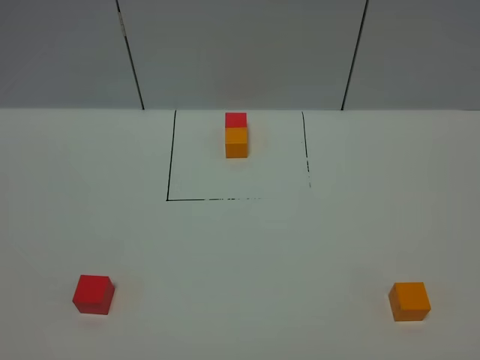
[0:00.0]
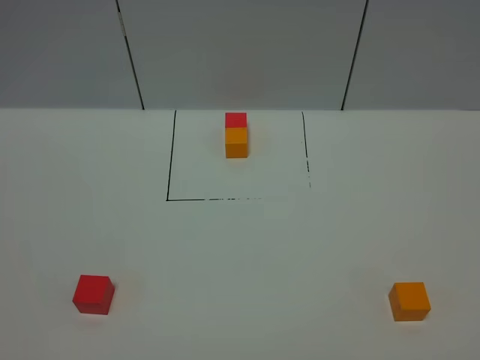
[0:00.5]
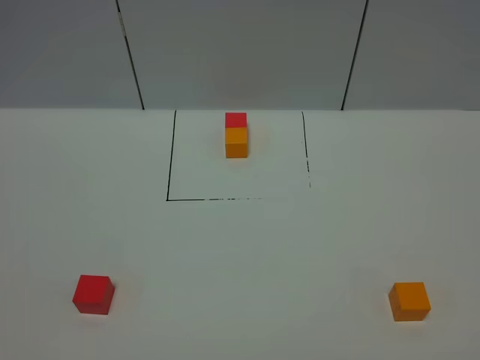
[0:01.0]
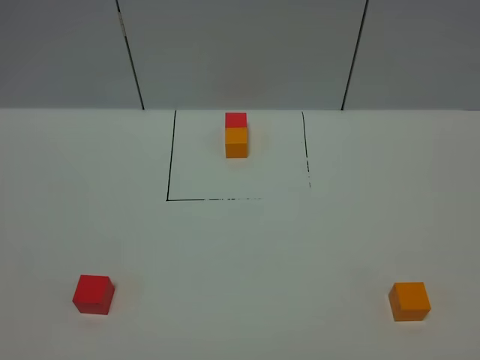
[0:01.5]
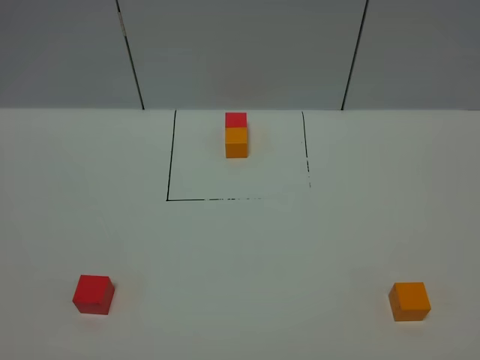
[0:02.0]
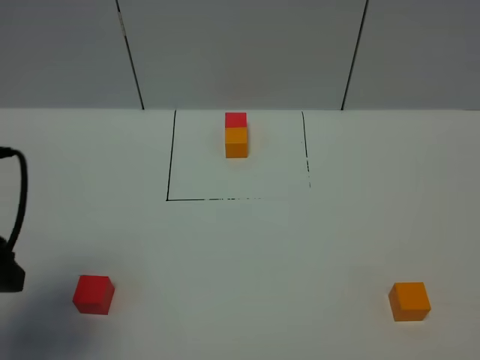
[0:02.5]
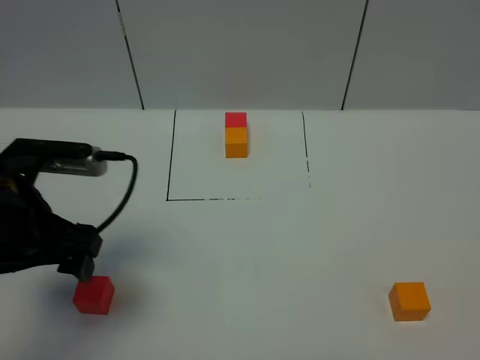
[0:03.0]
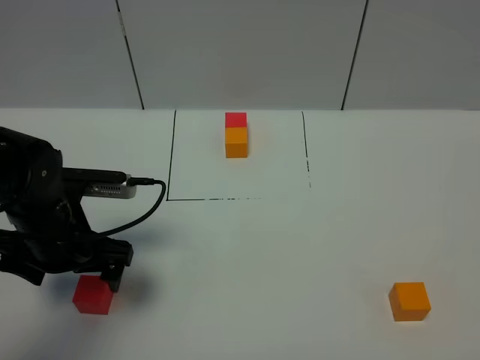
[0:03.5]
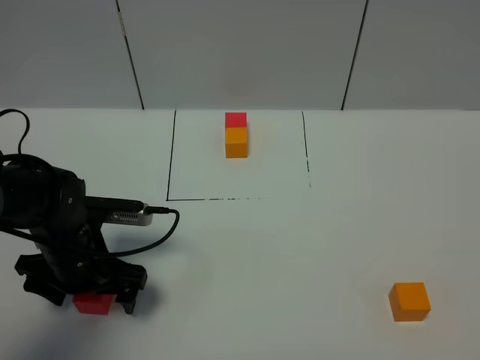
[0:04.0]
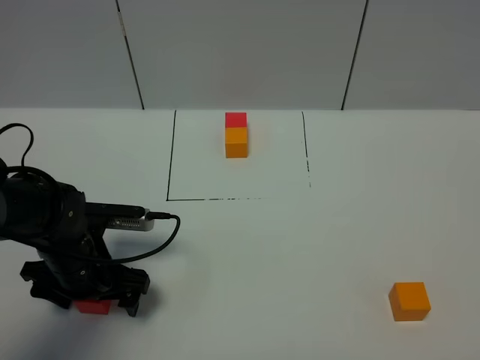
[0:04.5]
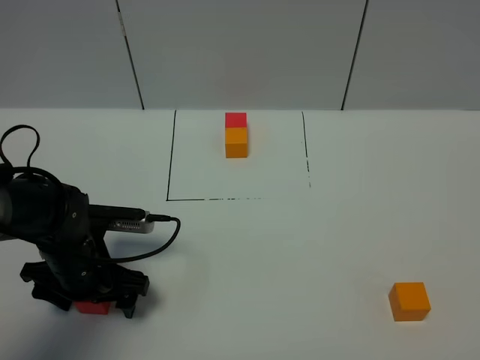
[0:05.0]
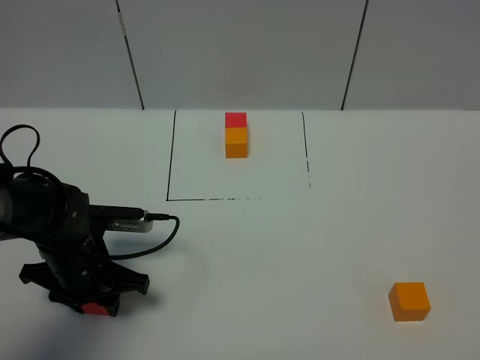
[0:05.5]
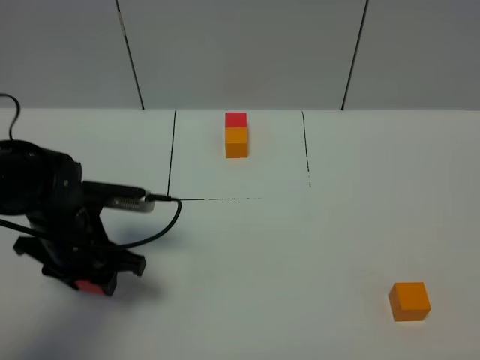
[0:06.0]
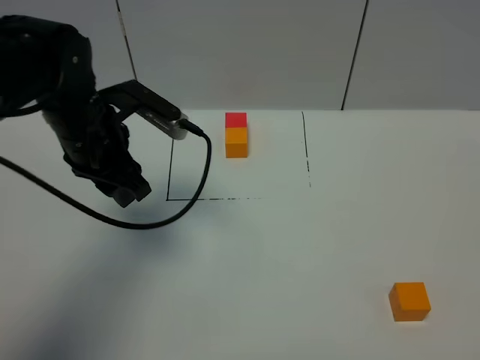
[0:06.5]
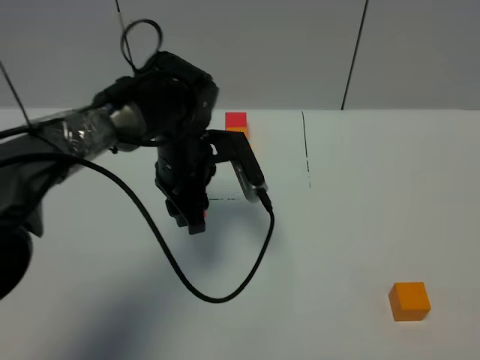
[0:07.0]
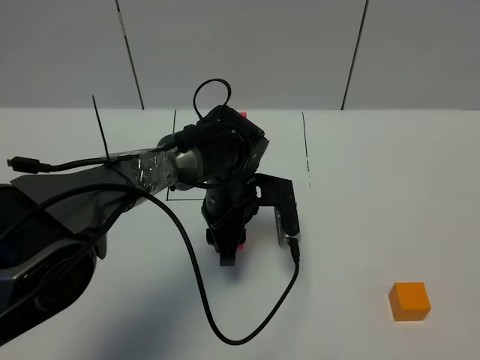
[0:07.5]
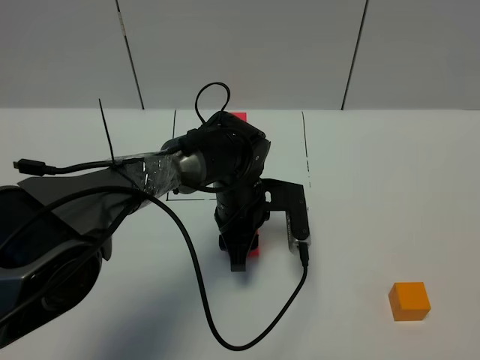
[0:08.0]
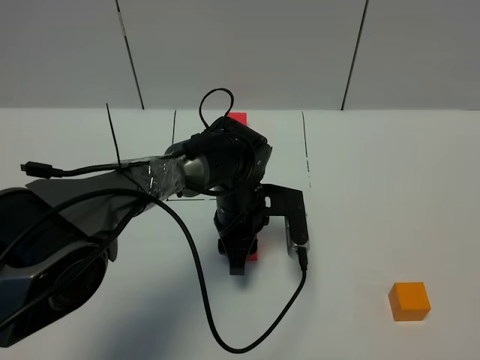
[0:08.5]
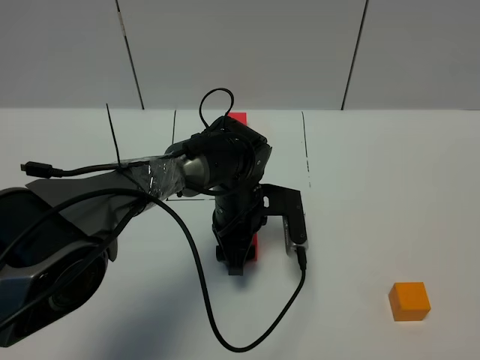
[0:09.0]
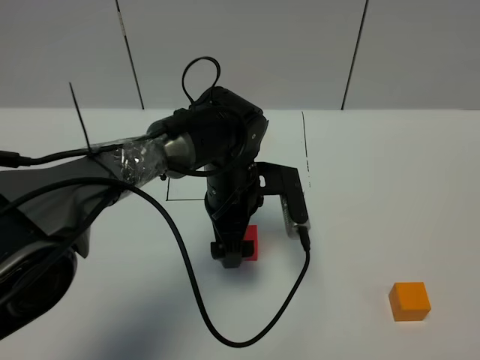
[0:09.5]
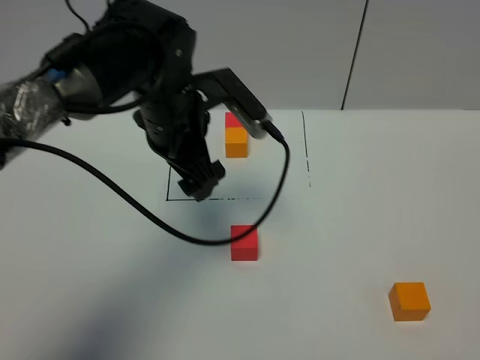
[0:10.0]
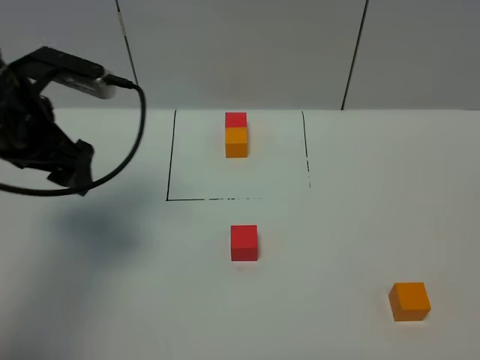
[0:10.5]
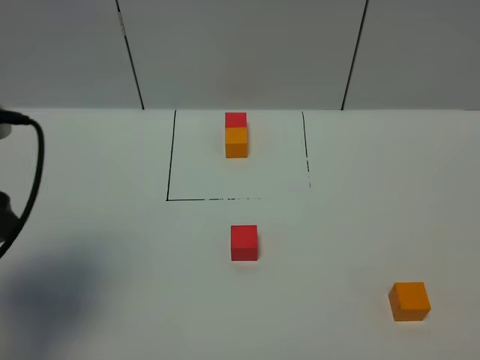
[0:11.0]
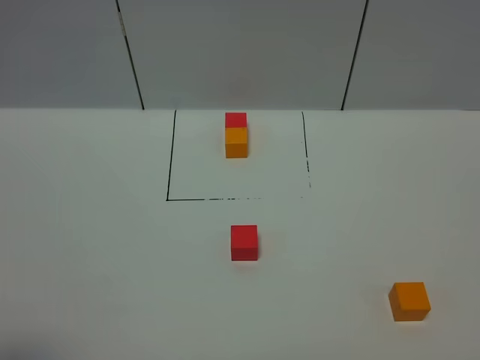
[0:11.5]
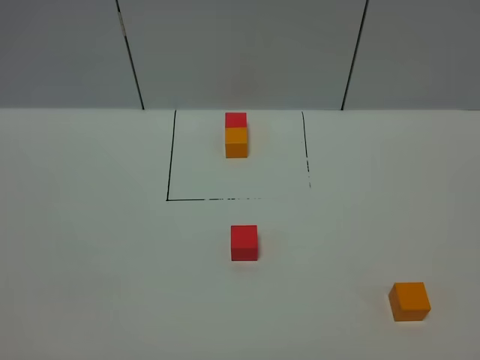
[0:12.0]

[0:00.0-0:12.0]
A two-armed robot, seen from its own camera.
Task of the whole recording: According to the building block template in front, assemble the scattered blocks together.
Step, 2.5 to 9.0 s: Put the red cube in the center of the table.
2.0 to 4.0 s: The left gripper is displaced forward and downward by about 30 cm.
4.0 to 6.0 s: The left gripper closes up.
6.0 to 8.0 s: The left gripper is displaced to the right by about 20 cm.
8.0 to 10.0 s: The left gripper goes roughly 20 cm upward and to the left, and opens its fingers.
10.0 to 12.0 s: The left gripper is displaced backward and to the left by roughly 40 cm.

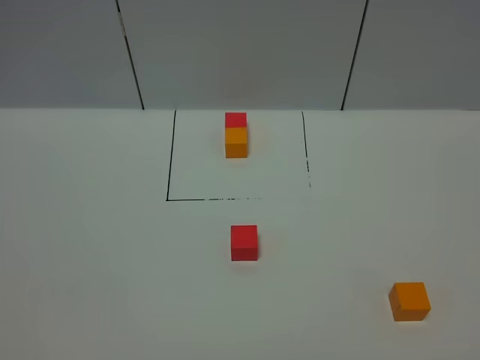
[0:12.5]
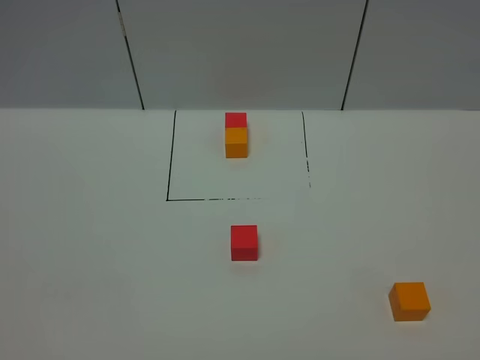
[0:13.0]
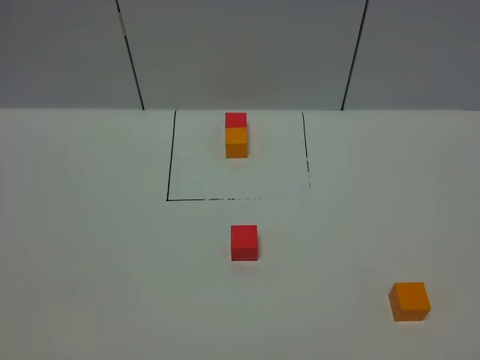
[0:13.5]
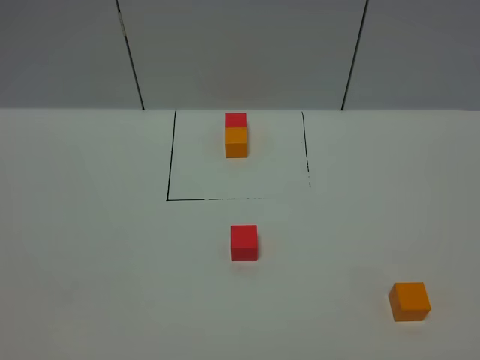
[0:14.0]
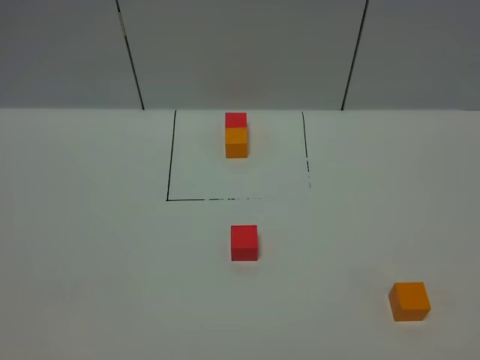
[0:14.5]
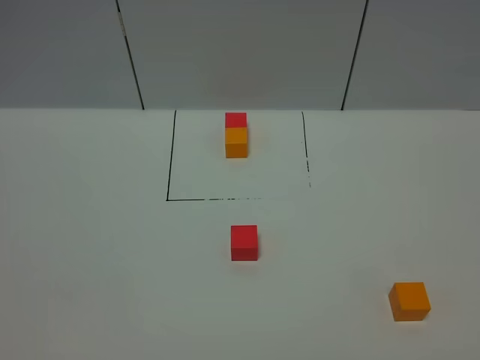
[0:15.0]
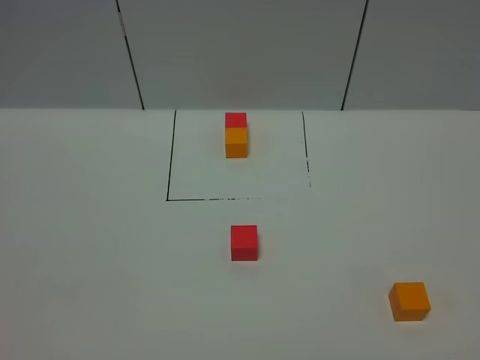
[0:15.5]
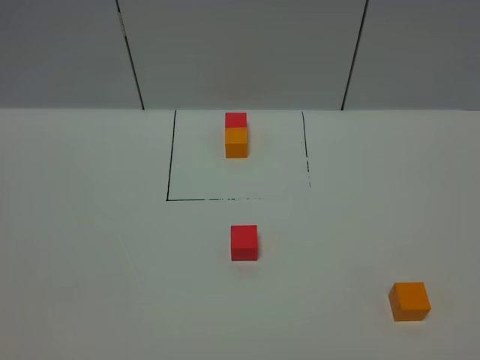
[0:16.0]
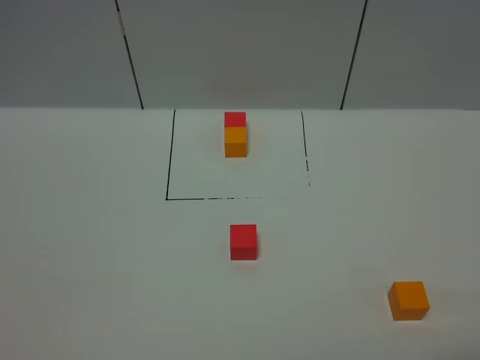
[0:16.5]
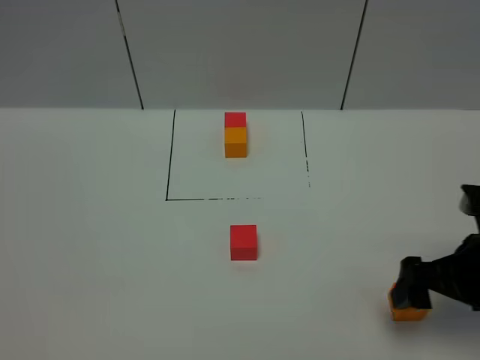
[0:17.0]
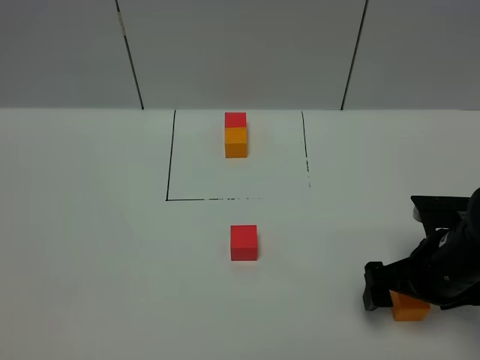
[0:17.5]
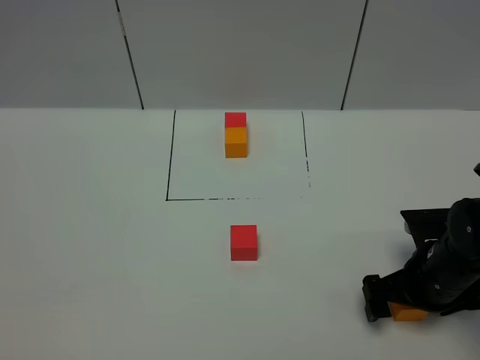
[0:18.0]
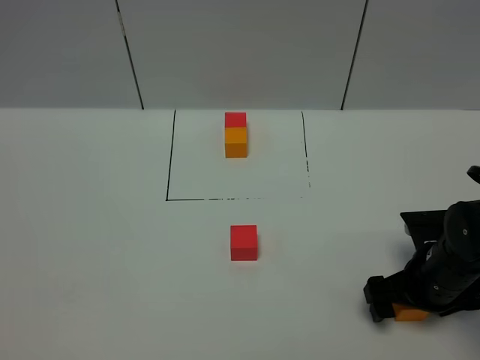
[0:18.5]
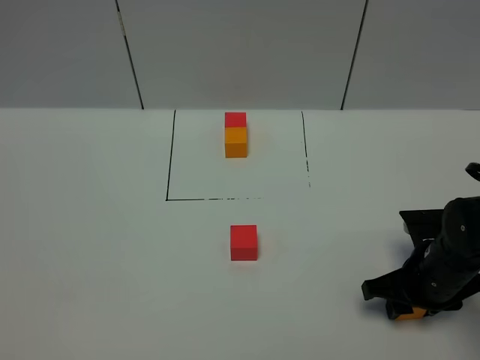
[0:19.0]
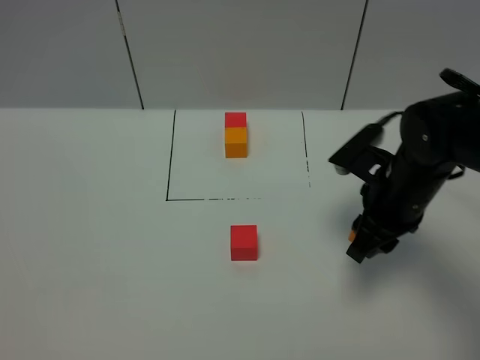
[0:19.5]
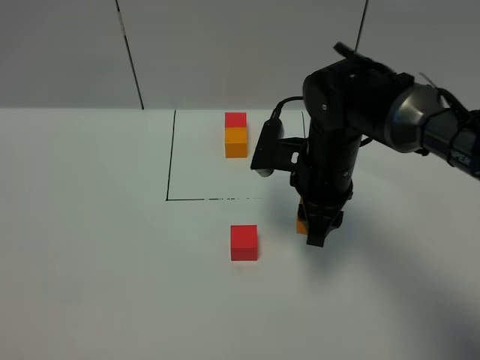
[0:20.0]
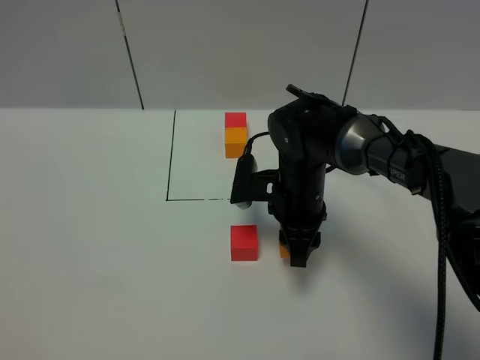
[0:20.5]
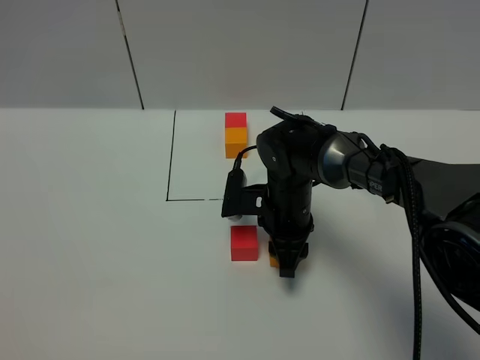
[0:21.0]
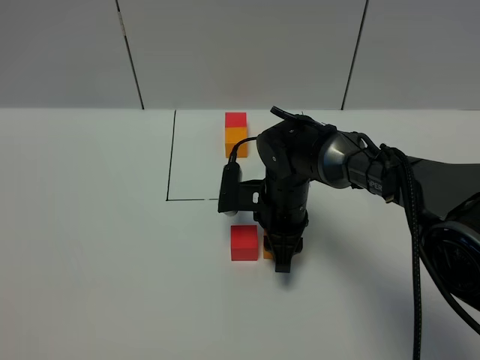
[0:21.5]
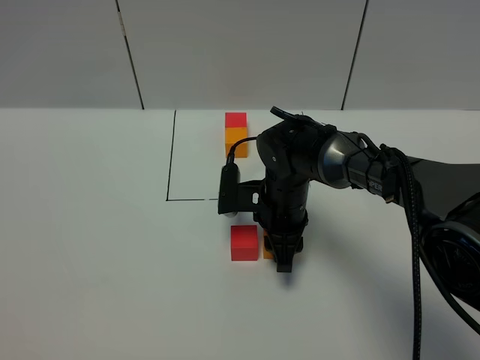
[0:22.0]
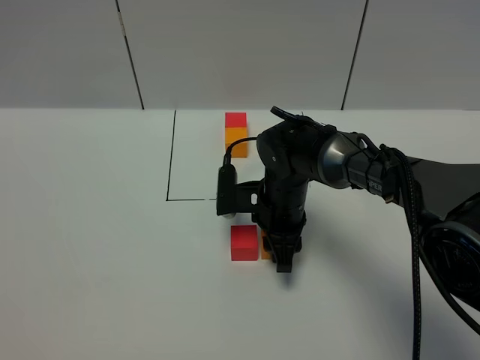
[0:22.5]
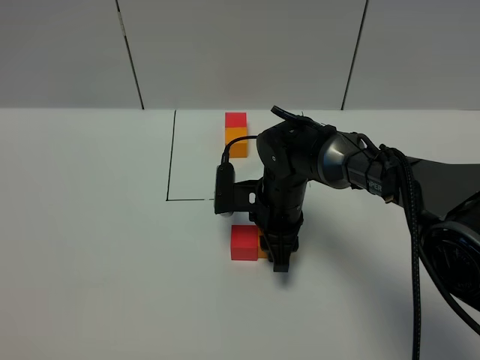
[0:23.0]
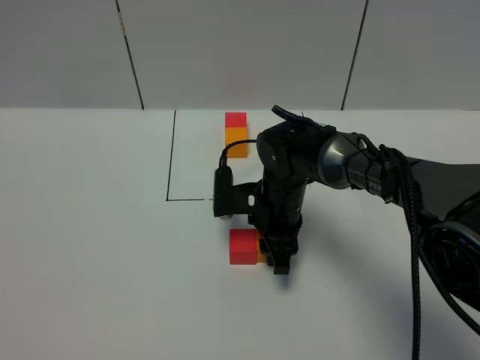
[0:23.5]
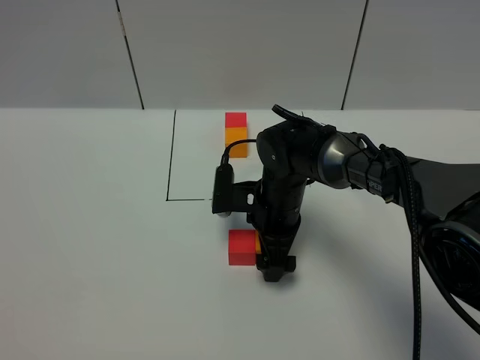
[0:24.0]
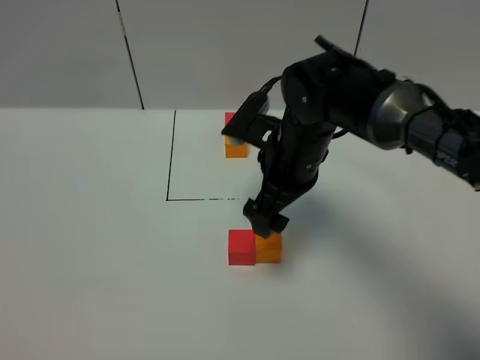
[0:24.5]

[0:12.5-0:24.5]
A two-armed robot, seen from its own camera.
Task of the whole recording: According to the building block template in front, assemble the scattered blocks together.
Step, 12.5 to 24.0 s: Put the orange cube on the right of the red cube.
12.5 to 14.5 s: Both grippers stay about where they are.
16.5 to 18.5 s: The right gripper travels downward and forward by approximately 25 cm.
18.5 to 20.5 s: The right gripper travels to the left and forward by some 20 cm, and closes up.
20.5 to 22.5 s: The grippers move only a little.
22.5 to 24.5 s: The right gripper travels upward by approximately 10 cm, and opens its fingers.

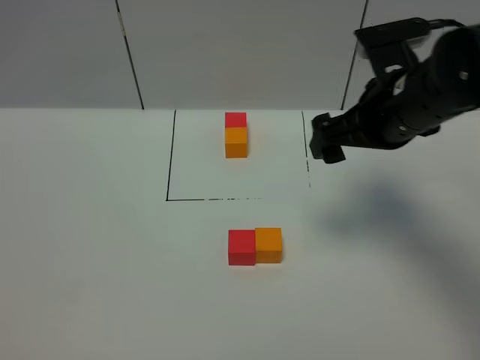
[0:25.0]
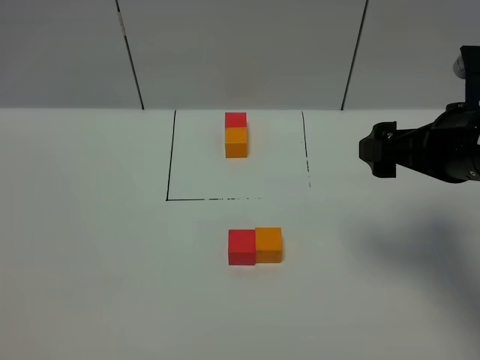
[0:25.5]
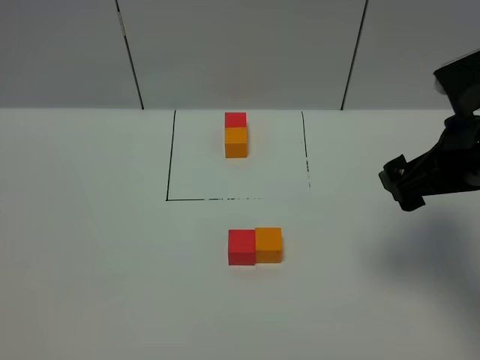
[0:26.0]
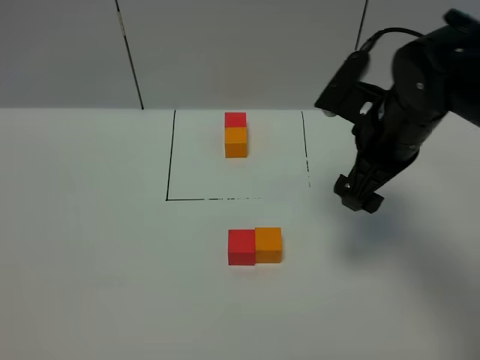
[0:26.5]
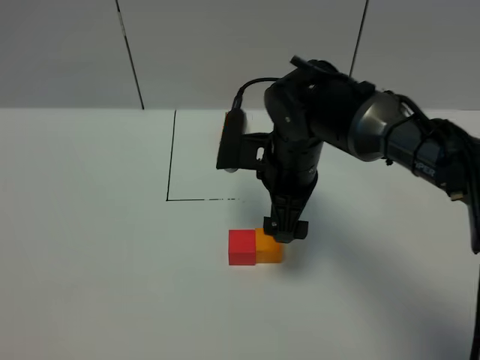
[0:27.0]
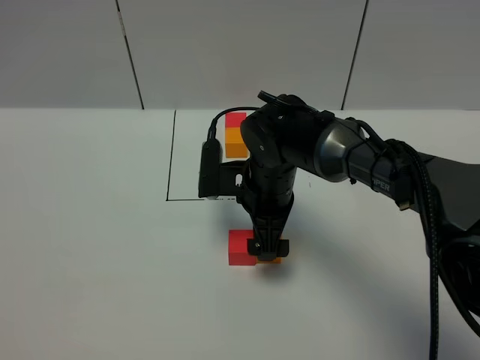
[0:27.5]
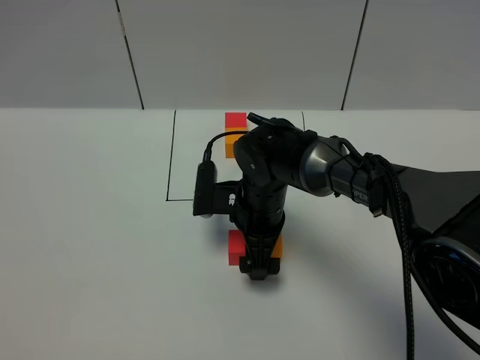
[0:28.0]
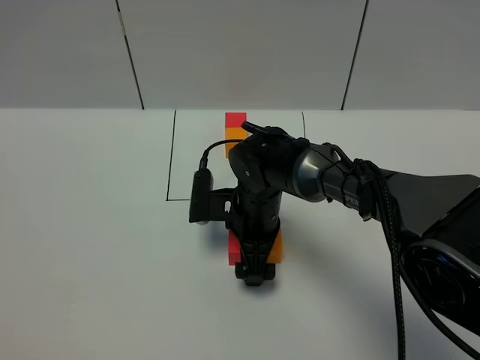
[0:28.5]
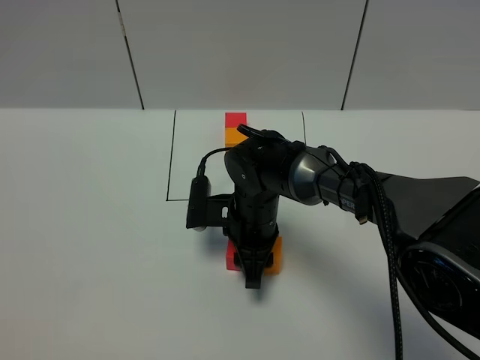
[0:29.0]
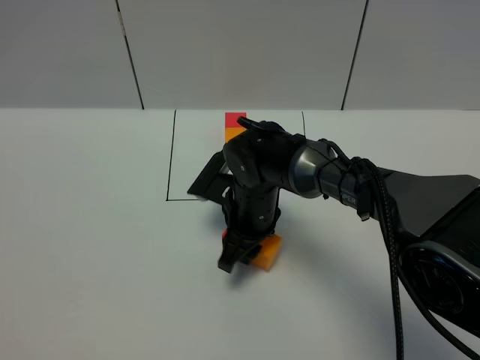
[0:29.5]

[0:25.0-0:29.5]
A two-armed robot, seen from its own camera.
Task of the whole recording: According to the building block template in front, assemble the scattered blocks together.
25.0 to 27.0 s: The right gripper goes some 15 cm to the left and downward.
27.0 to 29.5 s: The right gripper travels downward by about 5 cm, and closes.
